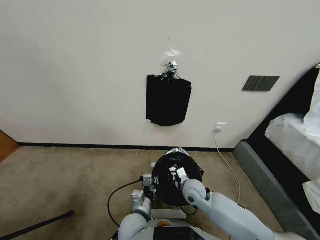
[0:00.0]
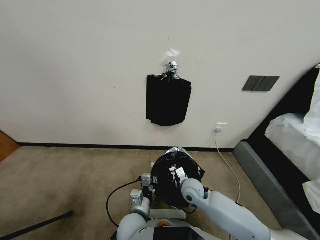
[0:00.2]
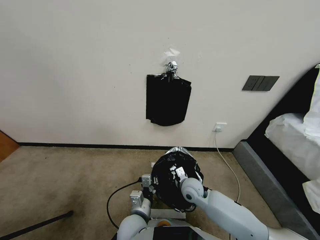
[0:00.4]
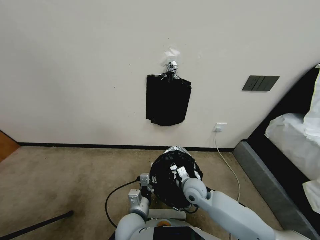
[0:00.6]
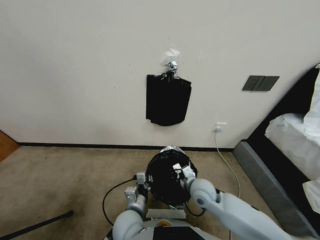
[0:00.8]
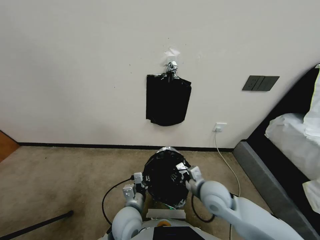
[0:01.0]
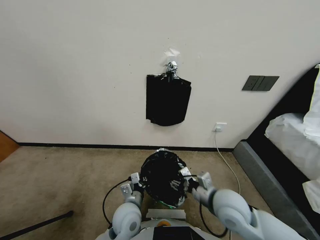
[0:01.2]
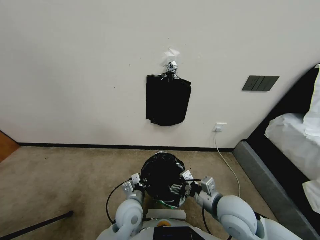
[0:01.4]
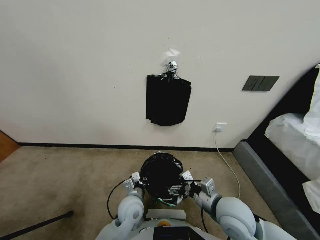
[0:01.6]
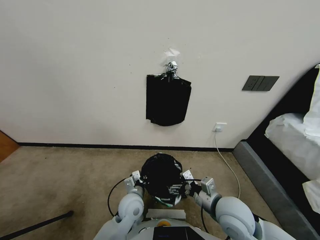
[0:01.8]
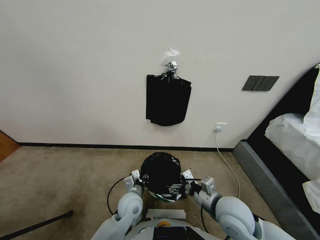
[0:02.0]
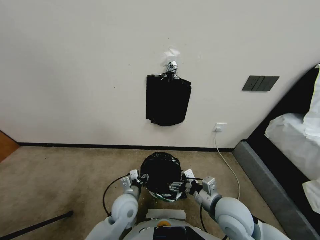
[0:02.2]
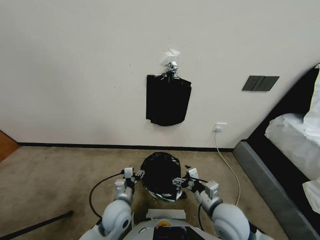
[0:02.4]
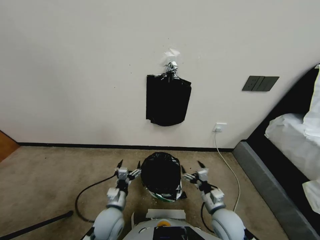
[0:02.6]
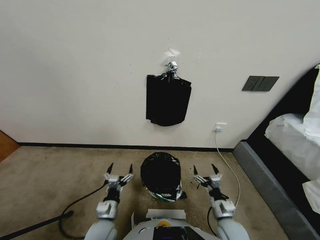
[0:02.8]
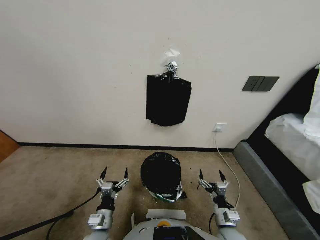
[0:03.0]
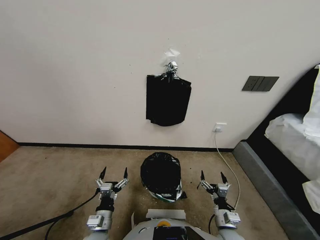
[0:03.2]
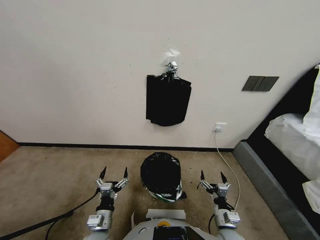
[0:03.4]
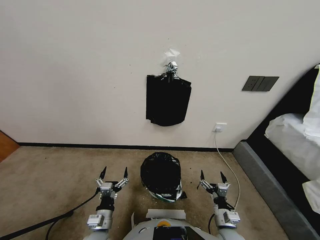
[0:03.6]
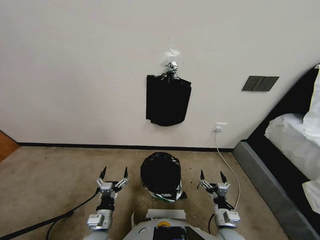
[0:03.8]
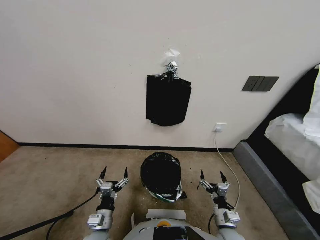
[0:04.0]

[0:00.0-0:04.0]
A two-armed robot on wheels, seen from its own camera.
Task of the whole recording: Place a trash bag onto the trash bin.
0.0 to 1.4 s: The left gripper shifts roughly 5 cm forward. The right gripper shifts roughly 15 cm upward, backward and to the right, and opens its fingers.
1.4 to 2.6 s: The left gripper goes roughly 10 cm to the left and backward, and opens. The right gripper moves downward, approximately 15 cm.
2.6 to 4.0 s: The grippers move only a little.

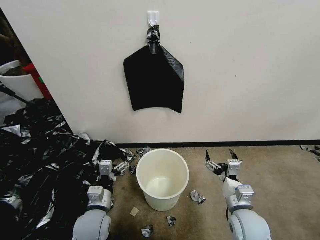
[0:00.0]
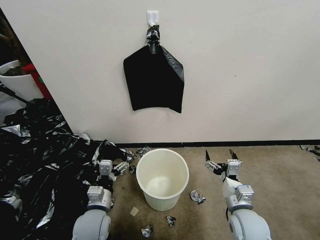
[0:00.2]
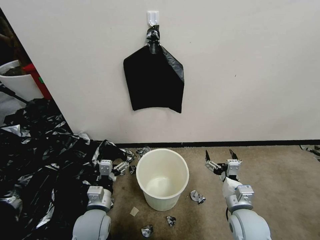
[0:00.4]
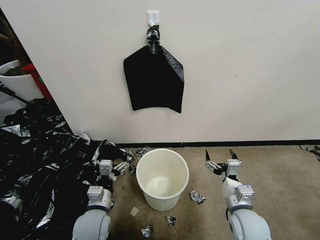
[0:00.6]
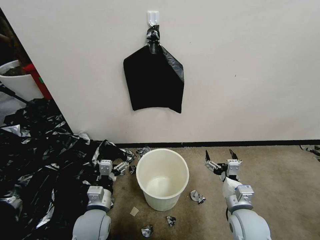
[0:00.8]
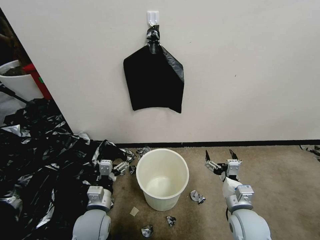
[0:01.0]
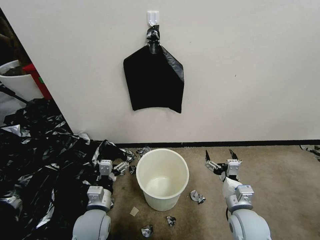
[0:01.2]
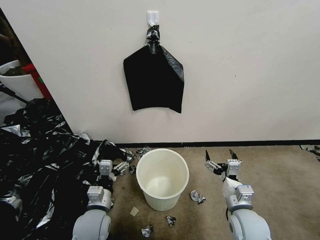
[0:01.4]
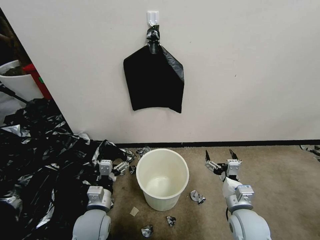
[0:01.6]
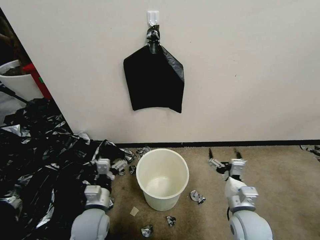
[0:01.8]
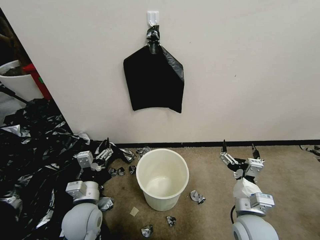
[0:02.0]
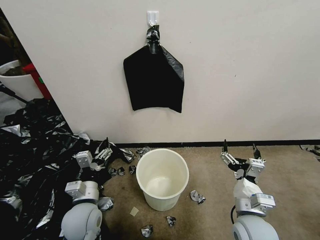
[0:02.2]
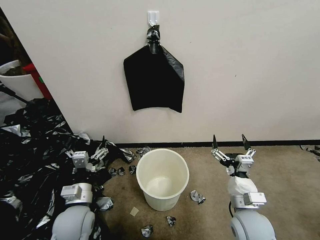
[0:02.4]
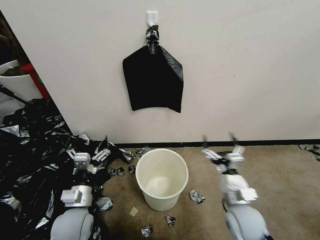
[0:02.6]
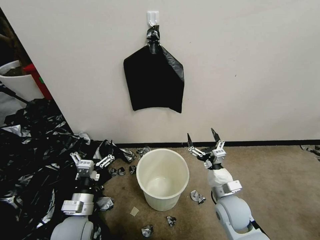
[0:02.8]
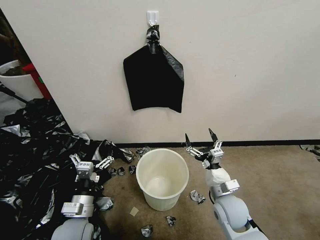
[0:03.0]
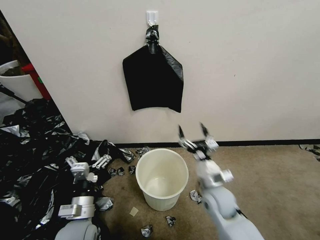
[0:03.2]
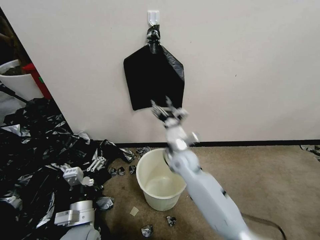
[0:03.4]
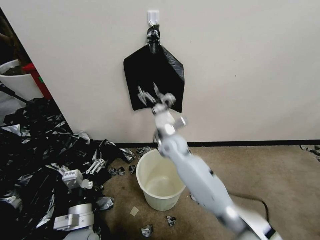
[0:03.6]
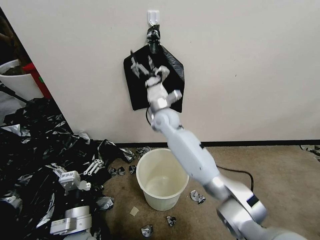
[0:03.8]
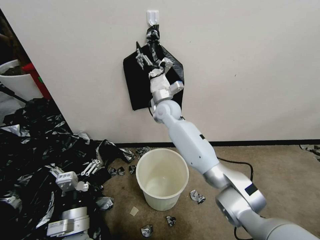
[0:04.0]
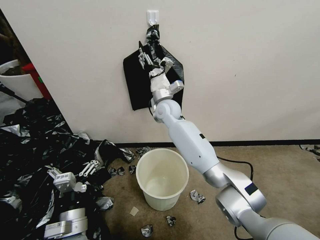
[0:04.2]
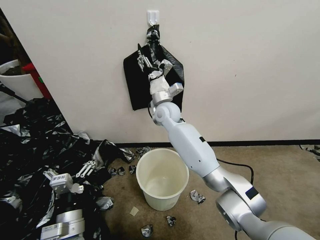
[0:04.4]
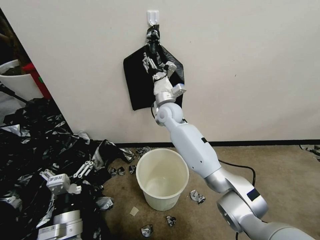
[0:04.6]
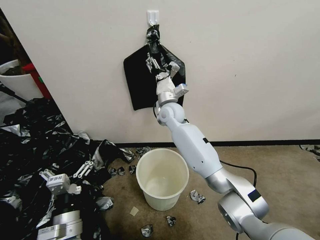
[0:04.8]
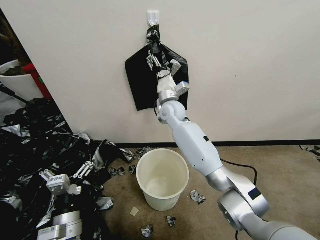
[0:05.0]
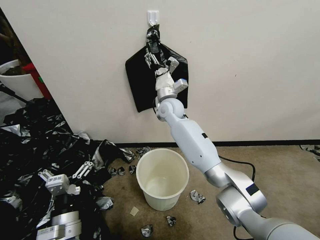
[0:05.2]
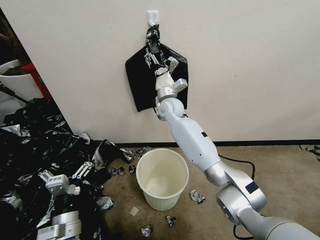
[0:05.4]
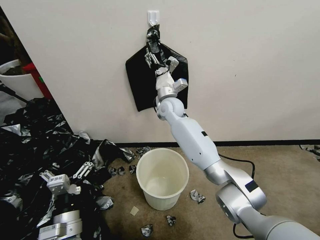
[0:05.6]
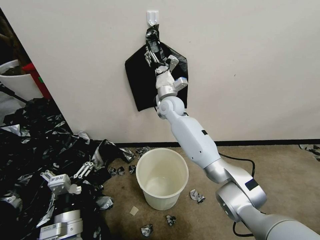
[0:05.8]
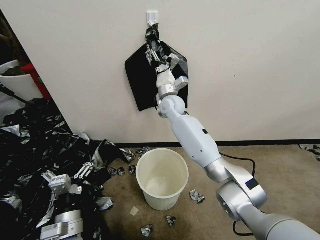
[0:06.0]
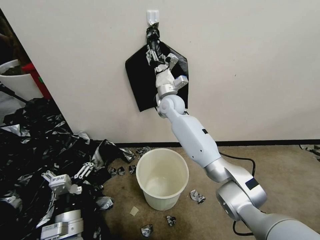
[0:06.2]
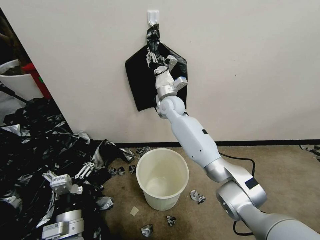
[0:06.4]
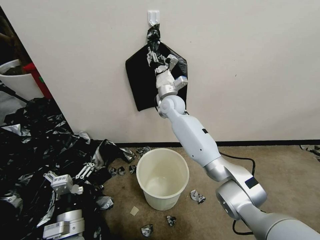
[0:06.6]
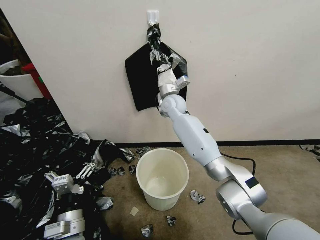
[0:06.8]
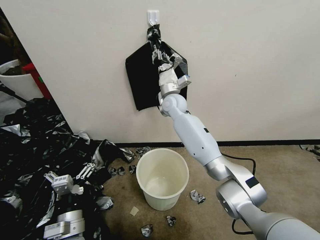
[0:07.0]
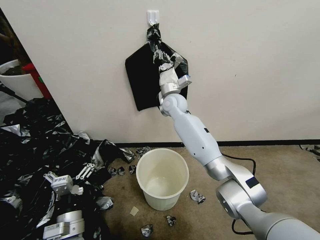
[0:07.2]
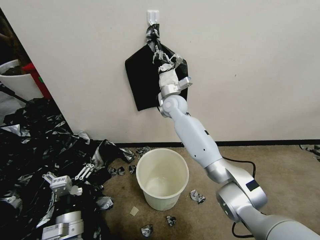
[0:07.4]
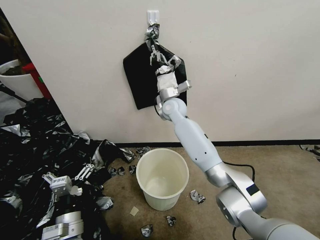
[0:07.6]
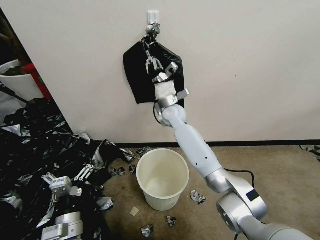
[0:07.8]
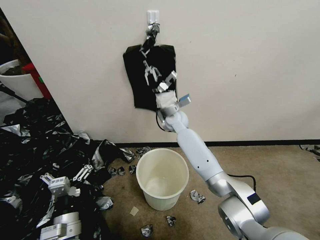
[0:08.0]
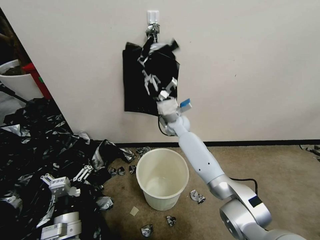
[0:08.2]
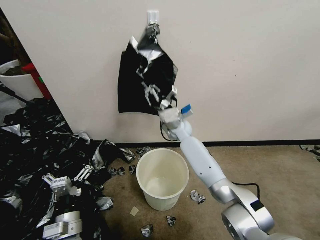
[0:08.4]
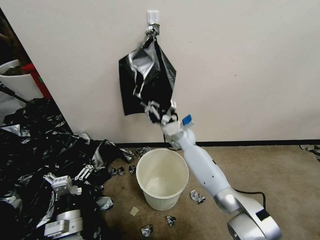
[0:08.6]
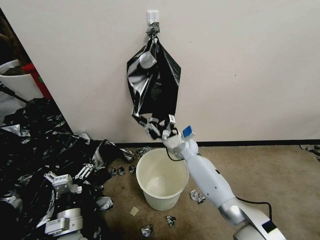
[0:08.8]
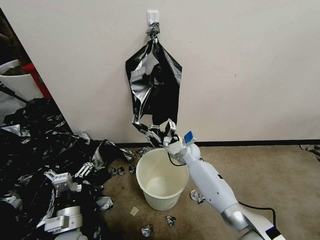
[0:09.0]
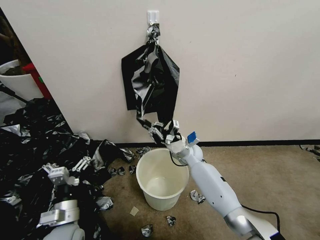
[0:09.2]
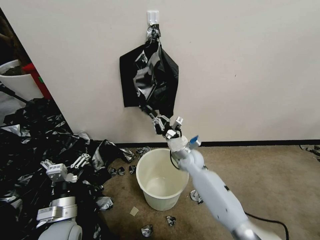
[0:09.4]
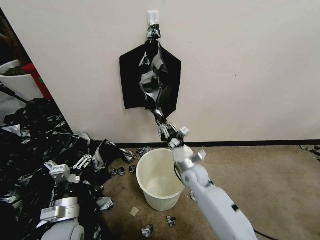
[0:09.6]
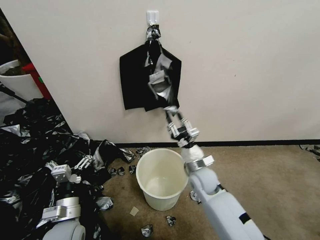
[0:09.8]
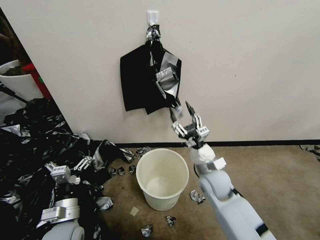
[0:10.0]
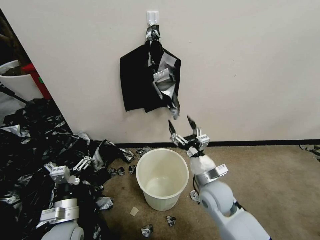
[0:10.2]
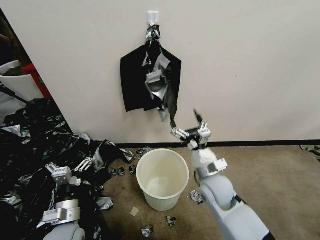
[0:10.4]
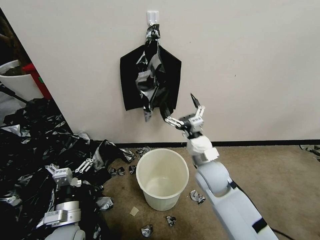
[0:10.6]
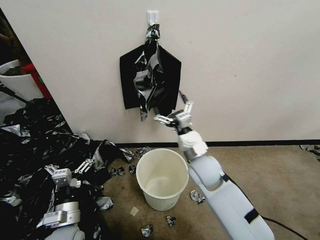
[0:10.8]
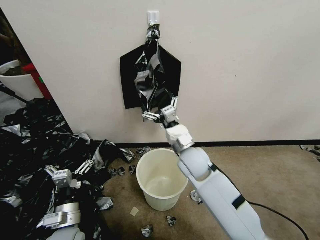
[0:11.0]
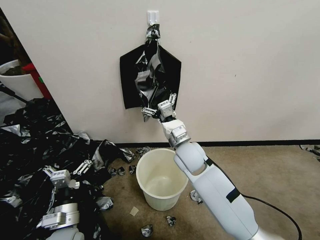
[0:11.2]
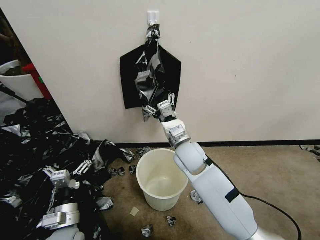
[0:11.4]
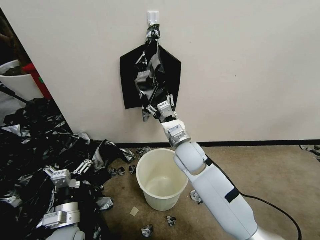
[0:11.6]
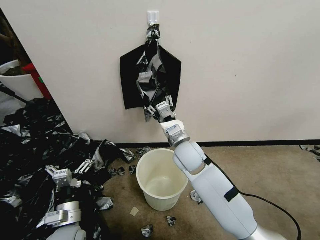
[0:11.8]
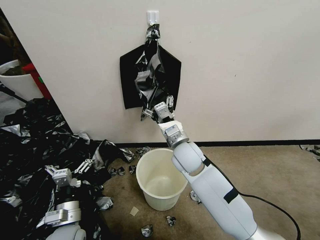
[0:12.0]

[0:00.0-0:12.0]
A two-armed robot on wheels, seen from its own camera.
Task of the whole recording: Place a trash bag onto the trash bin.
1.6 to 3.0 s: The left gripper shifts by about 5 cm. Meanwhile the right gripper shifts by about 5 cm.
3.0 to 4.4 s: The right gripper goes about 40 cm forward, to the left and upward. The left gripper changes place by about 5 cm.
4.4 to 6.0 s: The grippers move only a little.
6.0 to 7.6 s: The right gripper closes its fingers.
7.6 to 9.0 s: The right gripper moves downward, backward and to the right, roughly 20 cm.
9.0 to 10.4 s: The right gripper moves backward, approximately 20 cm, and opens.
10.4 to 12.0 s: The right gripper is displaced forward, to the left and upward by roughly 15 cm.

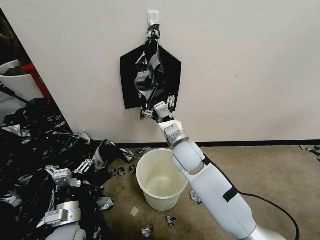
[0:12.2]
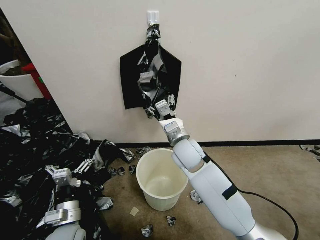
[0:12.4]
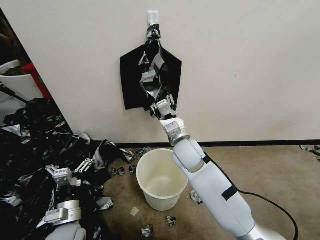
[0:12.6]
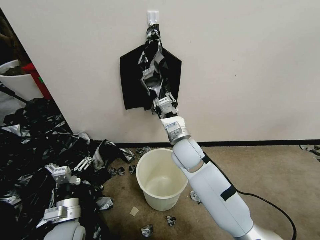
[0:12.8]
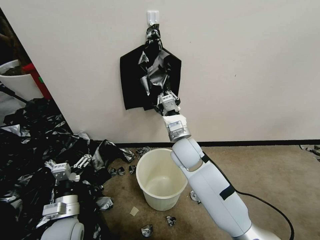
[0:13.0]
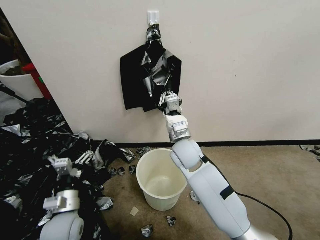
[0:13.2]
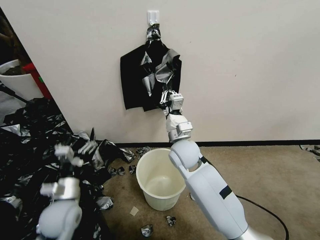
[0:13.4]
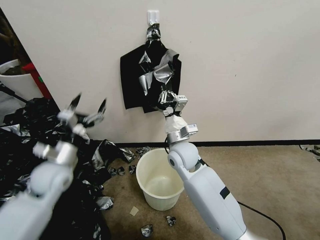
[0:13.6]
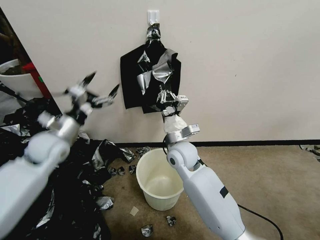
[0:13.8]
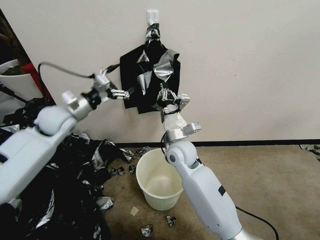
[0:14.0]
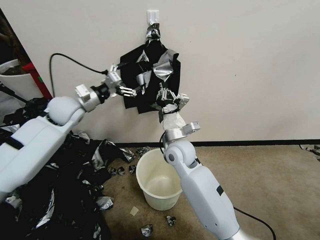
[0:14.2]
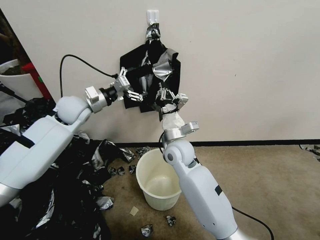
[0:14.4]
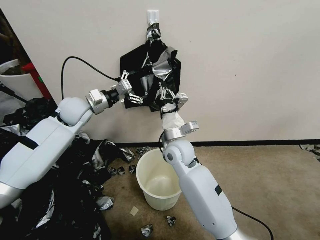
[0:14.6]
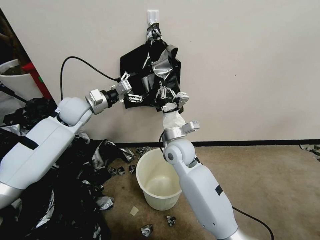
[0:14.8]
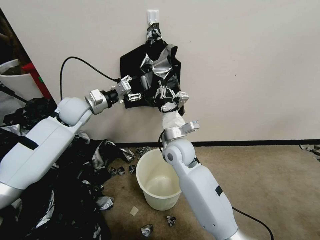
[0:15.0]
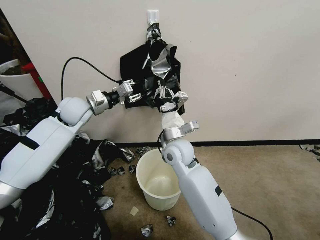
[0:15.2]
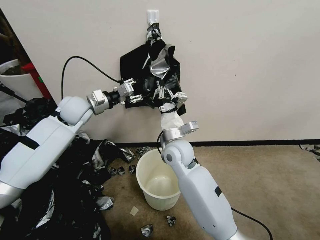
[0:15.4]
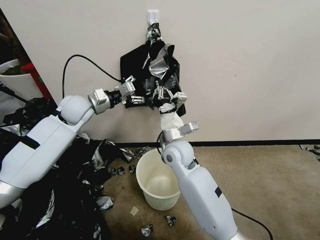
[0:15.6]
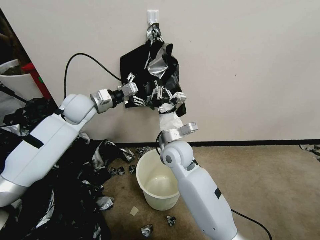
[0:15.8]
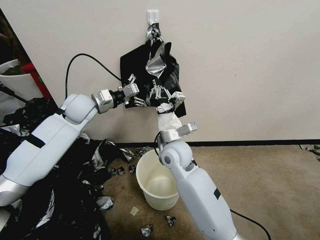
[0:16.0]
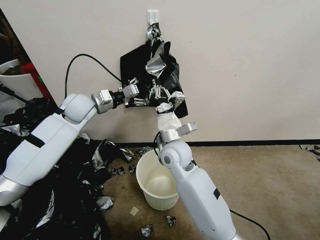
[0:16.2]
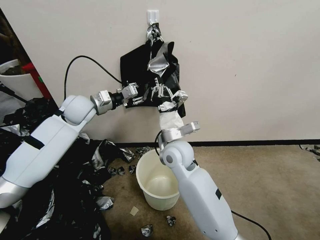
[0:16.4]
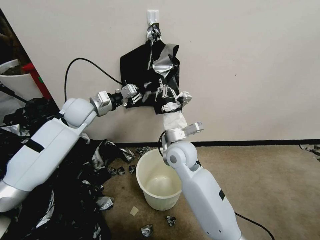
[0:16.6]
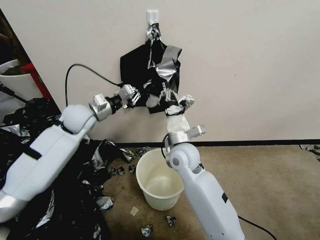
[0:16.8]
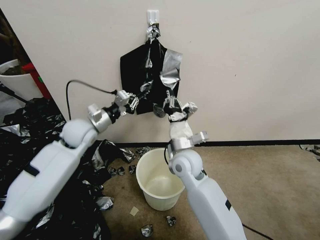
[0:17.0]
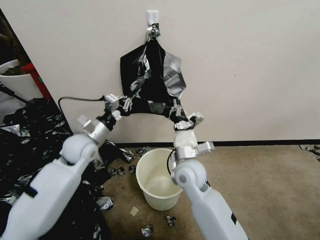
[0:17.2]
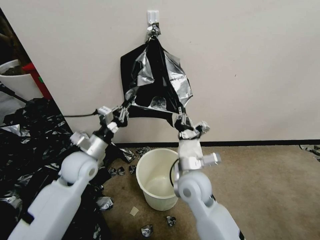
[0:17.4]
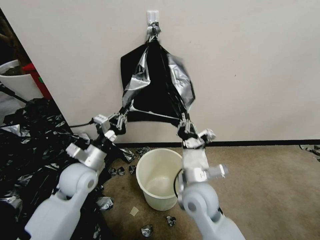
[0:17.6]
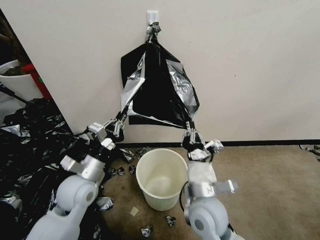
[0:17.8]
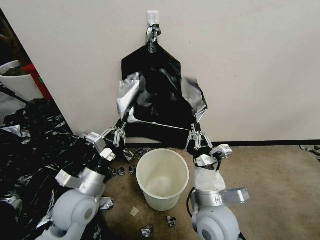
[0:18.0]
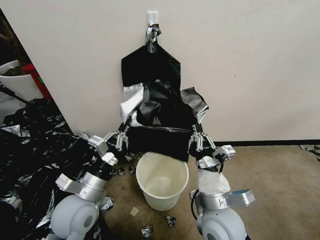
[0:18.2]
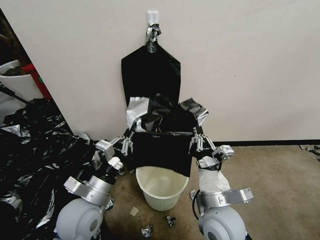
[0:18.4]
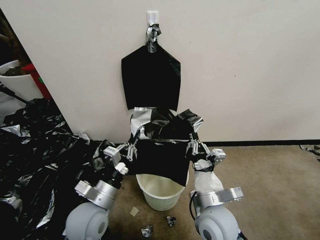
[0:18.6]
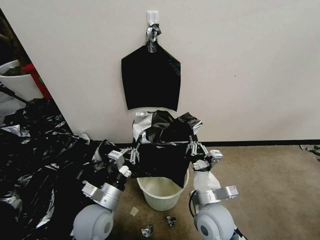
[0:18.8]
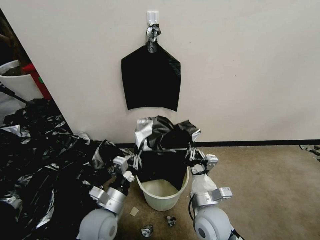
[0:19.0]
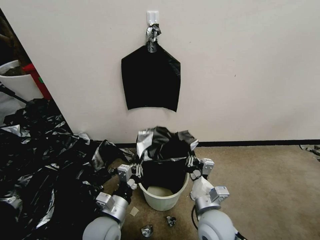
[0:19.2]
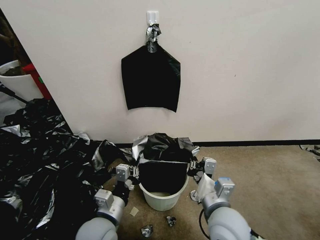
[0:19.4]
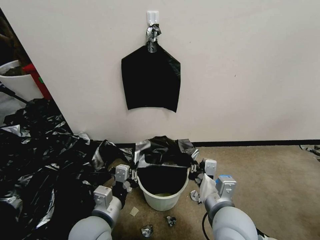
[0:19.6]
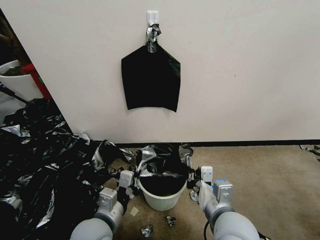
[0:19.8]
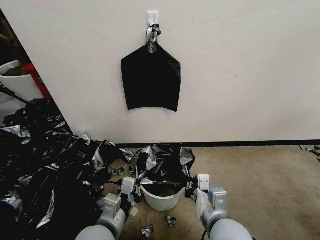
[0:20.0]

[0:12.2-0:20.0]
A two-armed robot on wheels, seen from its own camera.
Task of the whole recording: Place a trash bag onto the trash bin.
12.2 to 13.8 s: The right gripper closes up, while the left gripper goes some 30 cm forward and upward.
13.8 to 15.4 s: The left gripper travels forward by about 10 cm, and closes its fingers.
15.4 to 16.8 s: The left gripper closes its fingers.
16.8 to 18.4 s: The right gripper moves backward and to the right, approximately 20 cm. The left gripper heads backward, covering approximately 25 cm.
18.4 to 20.0 s: The left gripper goes some 5 cm backward, and moves some 10 cm downward and comes back; the right gripper goes downward and returns, about 10 cm each way.
